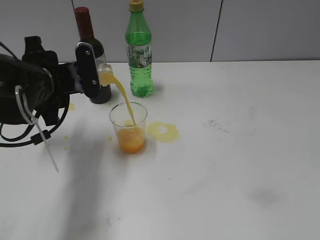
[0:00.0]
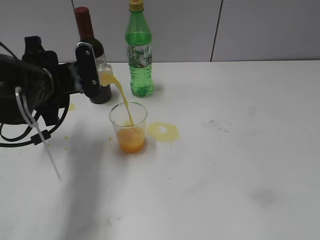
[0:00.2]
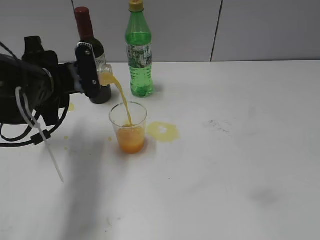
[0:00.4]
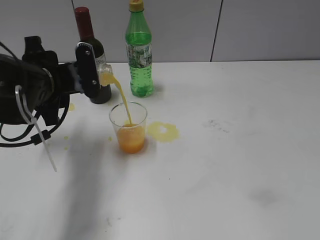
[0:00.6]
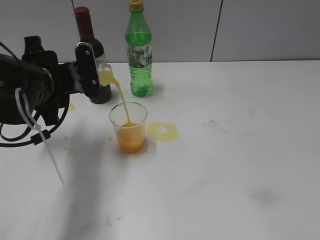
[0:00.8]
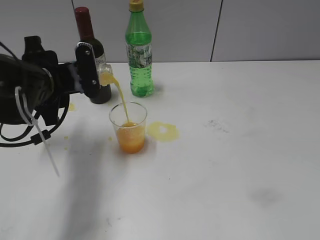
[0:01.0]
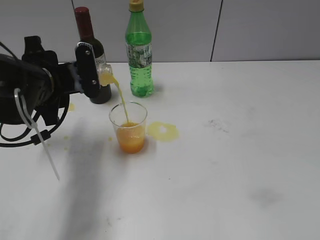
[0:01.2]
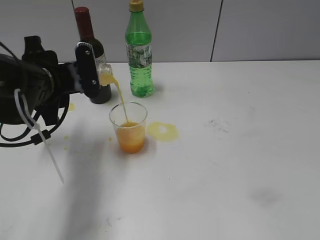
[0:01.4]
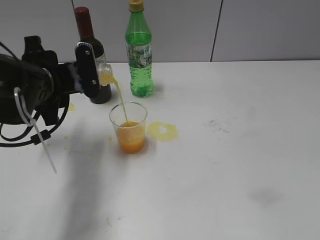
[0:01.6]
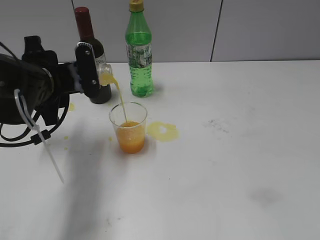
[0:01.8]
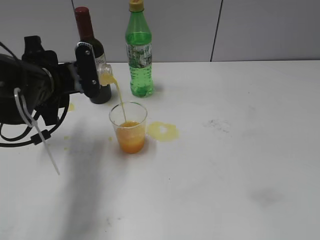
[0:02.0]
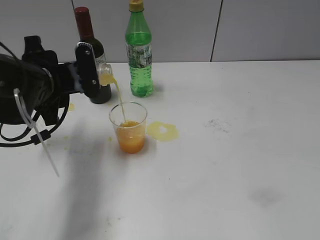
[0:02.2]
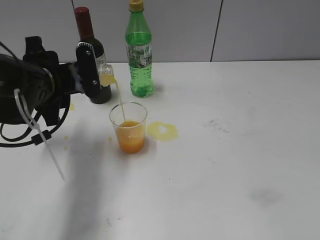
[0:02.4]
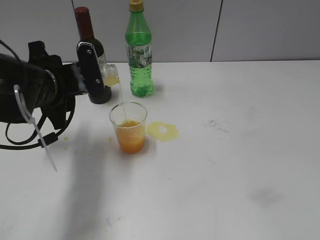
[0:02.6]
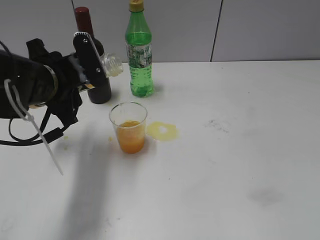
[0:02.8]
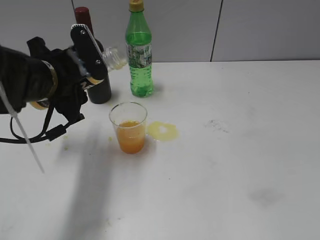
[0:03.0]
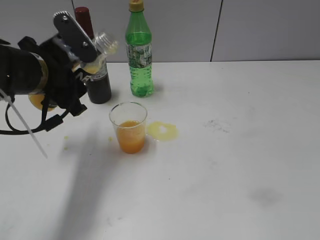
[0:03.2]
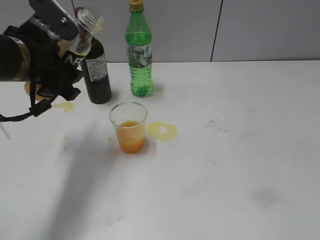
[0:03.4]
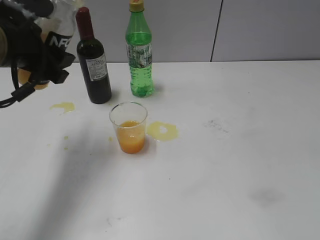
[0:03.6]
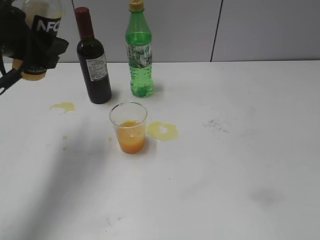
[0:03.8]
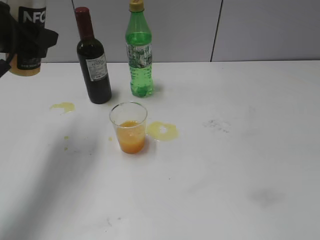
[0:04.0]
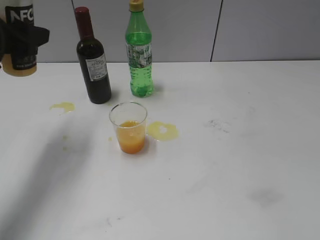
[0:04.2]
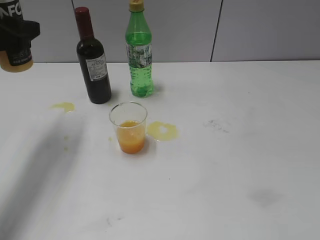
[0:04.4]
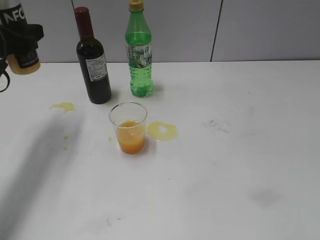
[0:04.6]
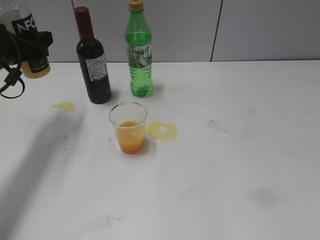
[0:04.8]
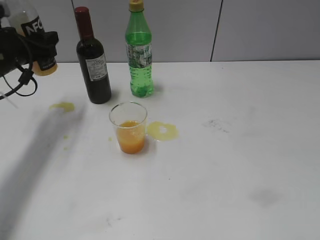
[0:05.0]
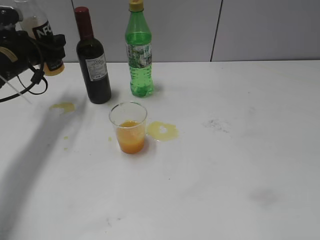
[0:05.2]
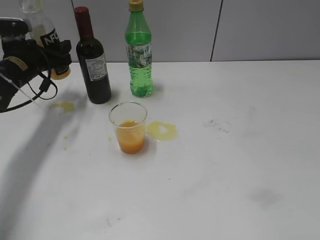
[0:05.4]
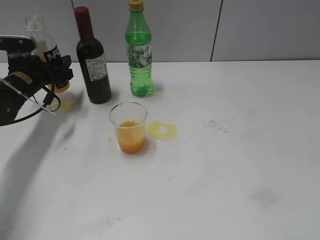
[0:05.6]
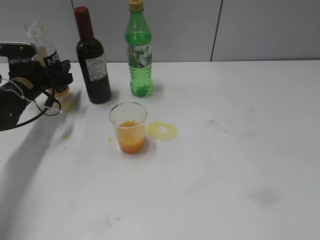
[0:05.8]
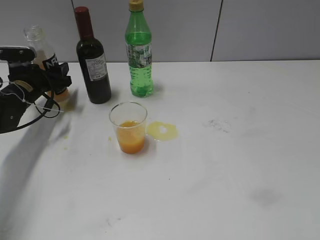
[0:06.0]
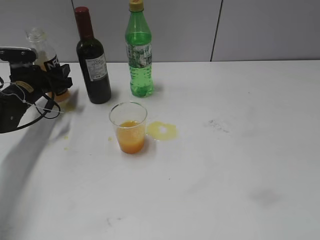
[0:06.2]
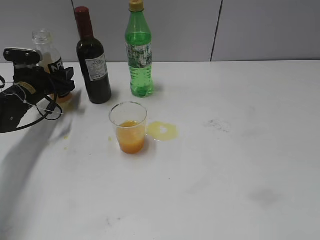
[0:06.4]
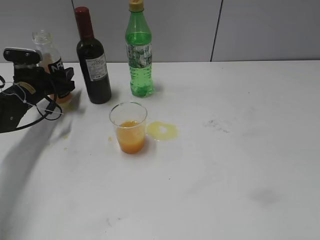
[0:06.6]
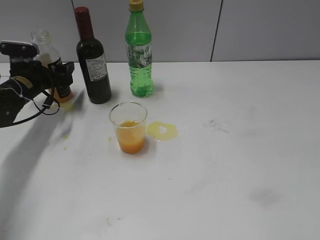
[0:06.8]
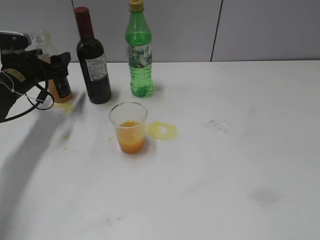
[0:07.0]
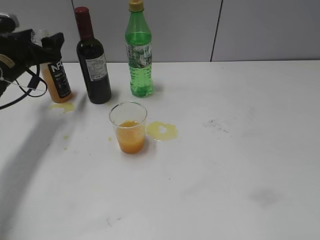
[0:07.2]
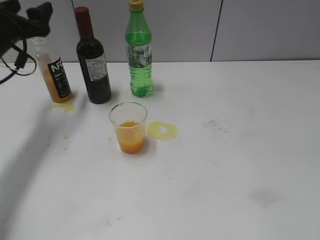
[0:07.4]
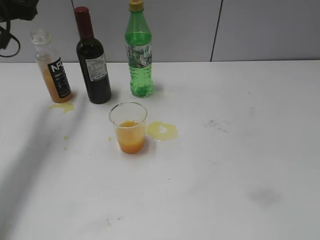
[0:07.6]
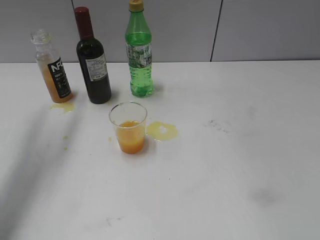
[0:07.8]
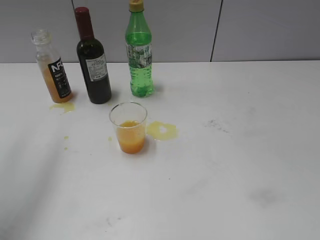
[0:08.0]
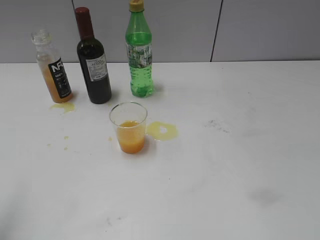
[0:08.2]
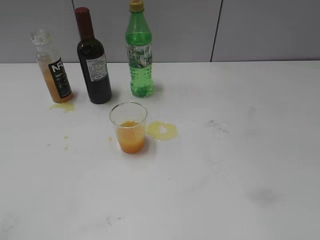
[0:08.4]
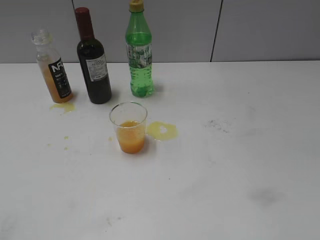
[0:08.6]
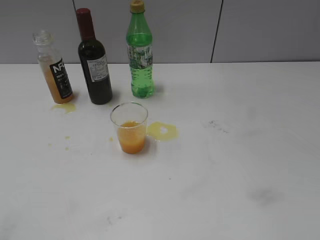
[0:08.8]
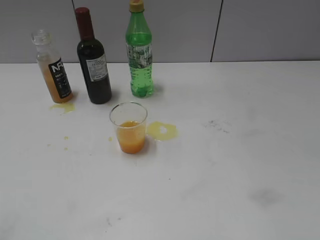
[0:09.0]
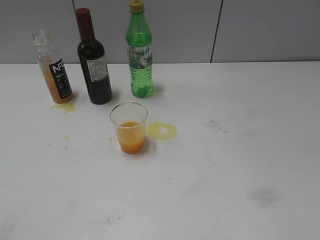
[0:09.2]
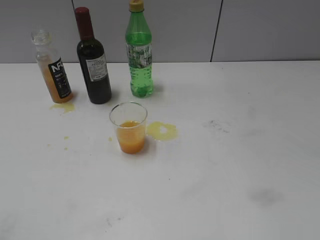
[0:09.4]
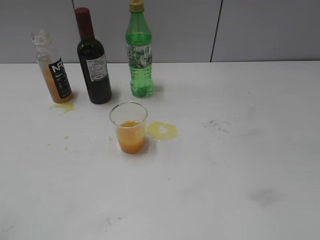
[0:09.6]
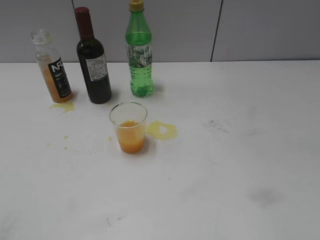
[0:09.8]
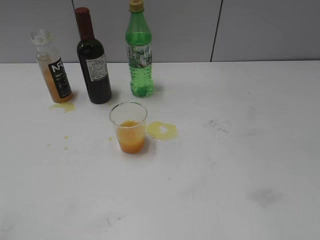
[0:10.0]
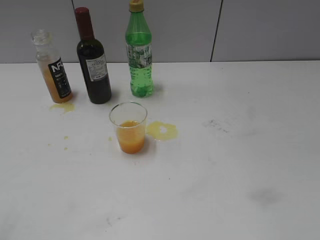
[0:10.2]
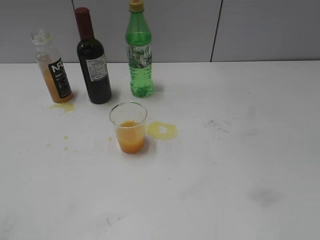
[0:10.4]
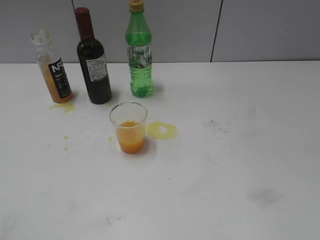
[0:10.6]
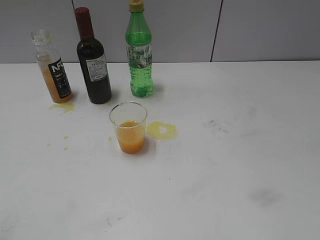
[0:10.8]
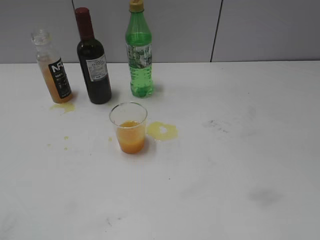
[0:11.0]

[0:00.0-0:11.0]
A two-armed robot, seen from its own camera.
Step, 0:00.0 to 0:03.0: Pour the orange juice from bottle to cup with left gripper.
Step, 0:03.4 to 0:06.8: Place the orange juice bottle on the table with left gripper.
0:00.0 to 0:01.6: Both grippers stay put.
0:03.2 to 0:04.8: The left gripper shifts some 10 cm to the left and forward.
0:04.8 to 0:06.2: The left gripper goes roughly 15 cm downward and forward.
0:06.2 to 0:07.8: The left gripper heads upward and backward, covering approximately 25 cm, and opens up.
0:07.8 to 0:09.4: The left gripper travels backward by some 35 cm.

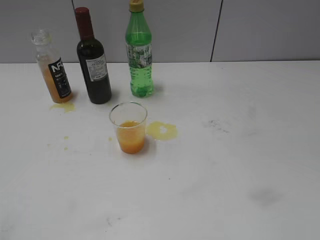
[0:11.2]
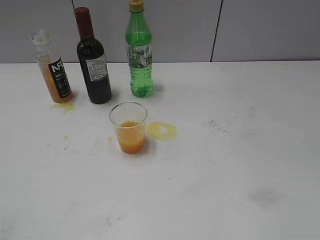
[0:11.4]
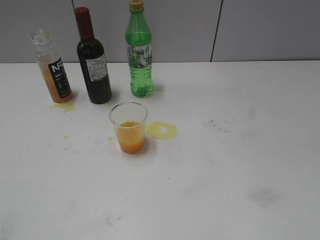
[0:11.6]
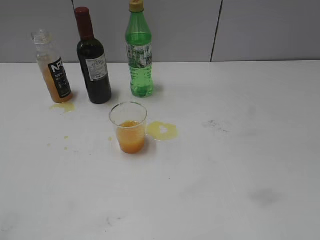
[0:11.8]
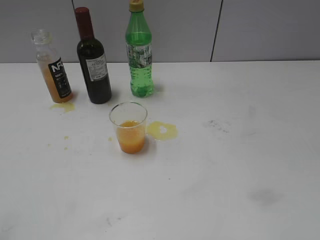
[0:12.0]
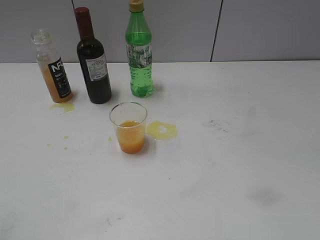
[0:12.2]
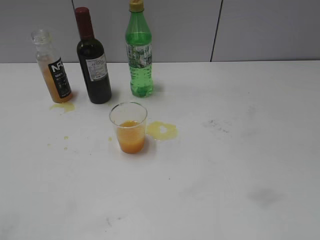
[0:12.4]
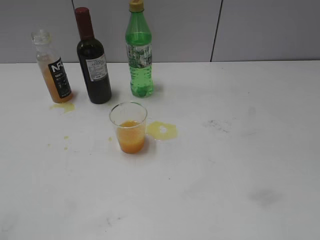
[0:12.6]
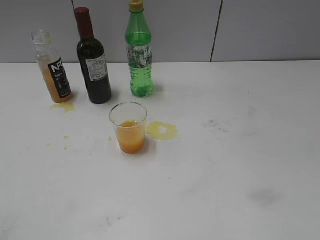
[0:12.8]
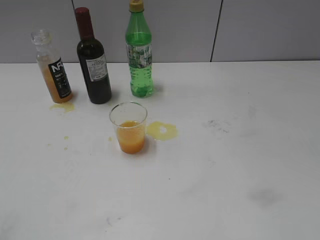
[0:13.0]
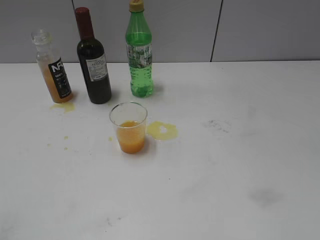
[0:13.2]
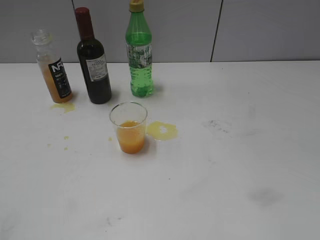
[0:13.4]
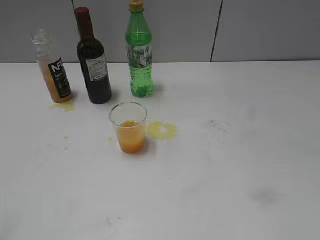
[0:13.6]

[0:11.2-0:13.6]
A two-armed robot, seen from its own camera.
0:11.2 to 0:13.6: The two grippers keep their place.

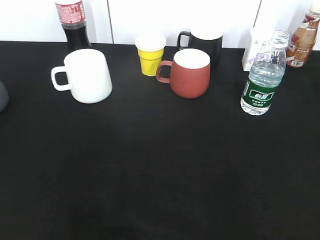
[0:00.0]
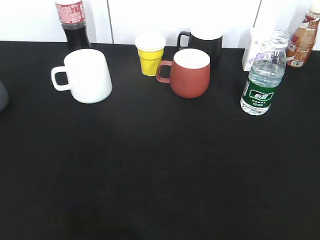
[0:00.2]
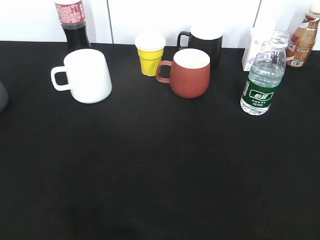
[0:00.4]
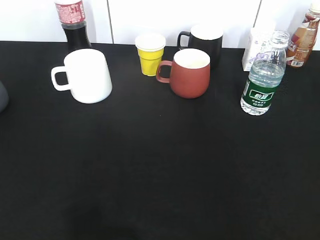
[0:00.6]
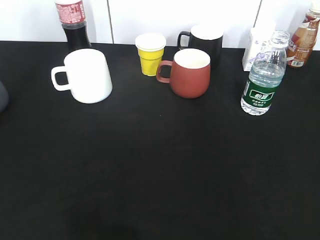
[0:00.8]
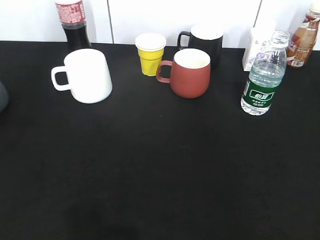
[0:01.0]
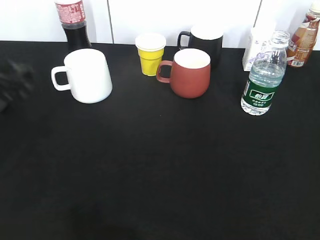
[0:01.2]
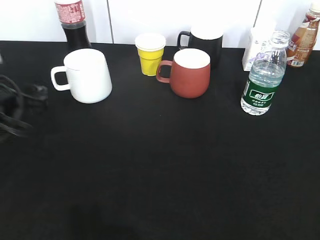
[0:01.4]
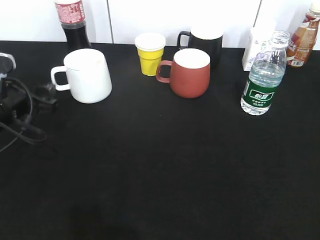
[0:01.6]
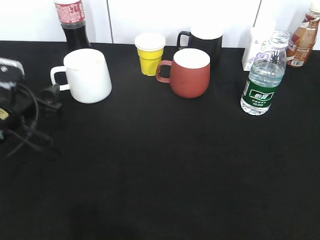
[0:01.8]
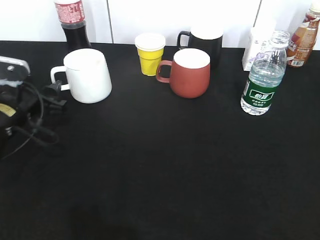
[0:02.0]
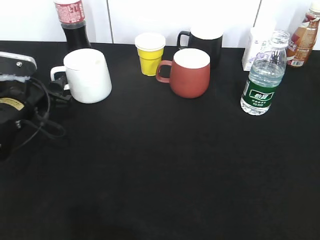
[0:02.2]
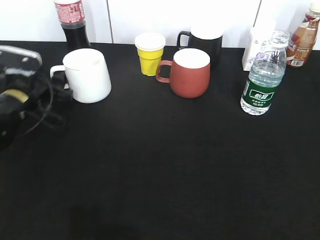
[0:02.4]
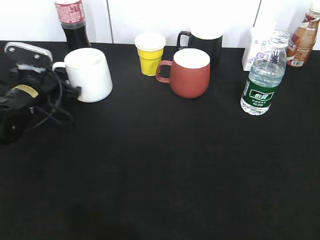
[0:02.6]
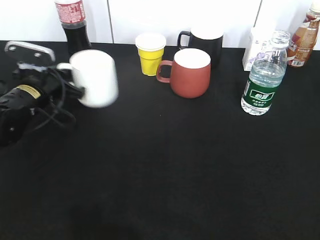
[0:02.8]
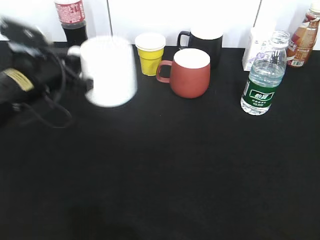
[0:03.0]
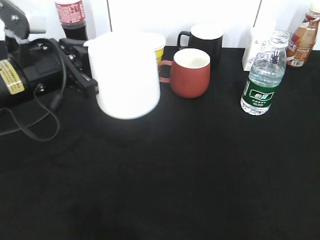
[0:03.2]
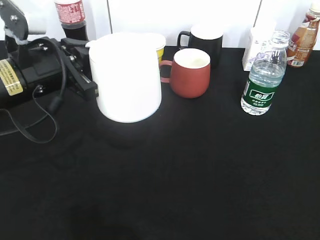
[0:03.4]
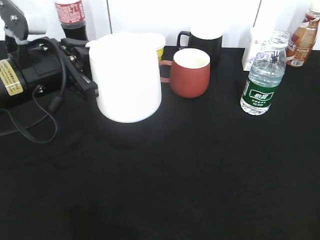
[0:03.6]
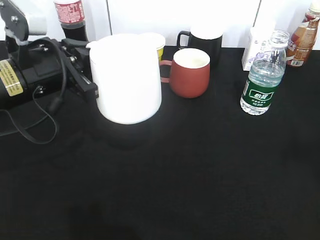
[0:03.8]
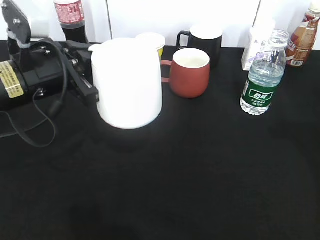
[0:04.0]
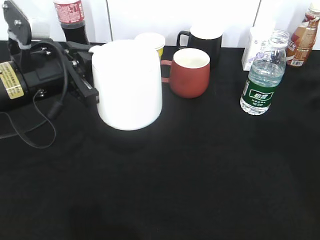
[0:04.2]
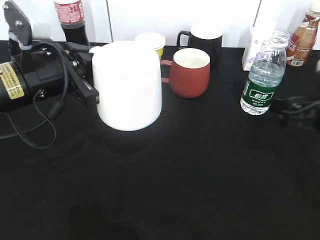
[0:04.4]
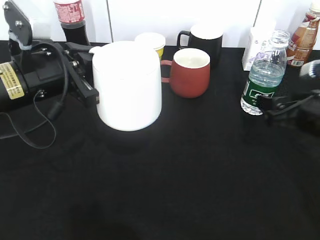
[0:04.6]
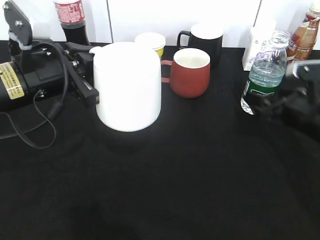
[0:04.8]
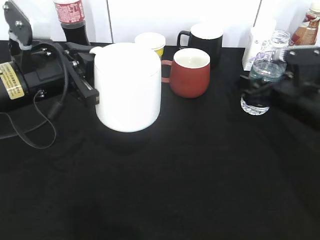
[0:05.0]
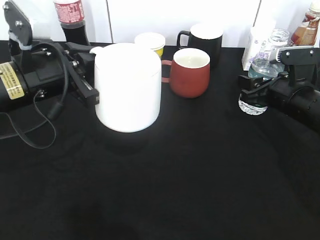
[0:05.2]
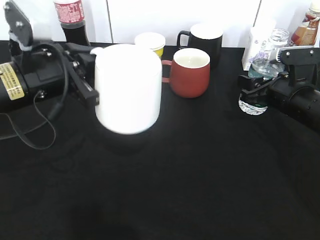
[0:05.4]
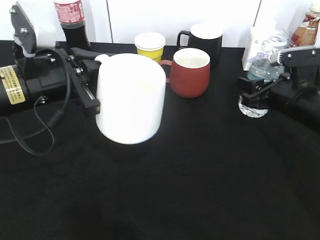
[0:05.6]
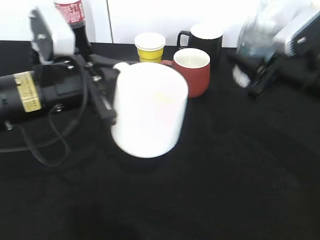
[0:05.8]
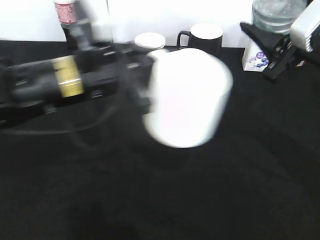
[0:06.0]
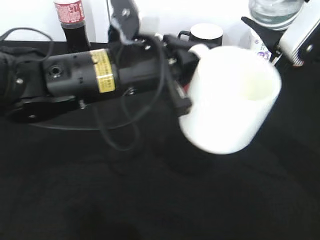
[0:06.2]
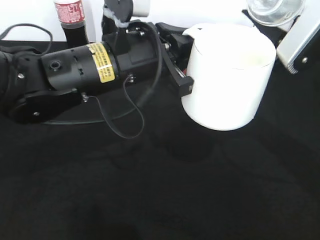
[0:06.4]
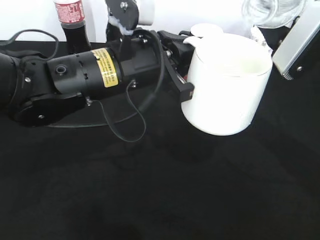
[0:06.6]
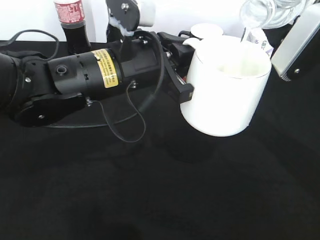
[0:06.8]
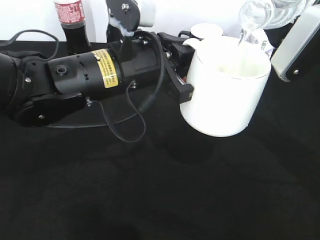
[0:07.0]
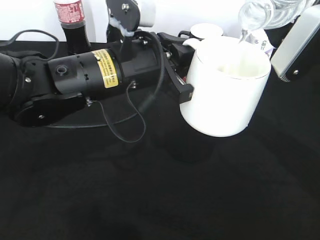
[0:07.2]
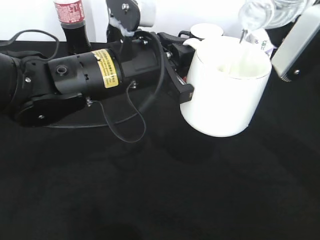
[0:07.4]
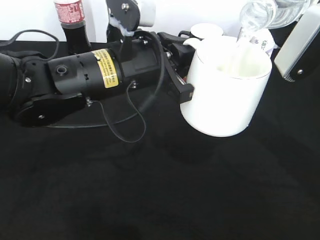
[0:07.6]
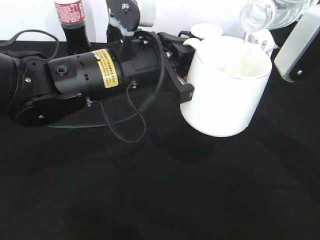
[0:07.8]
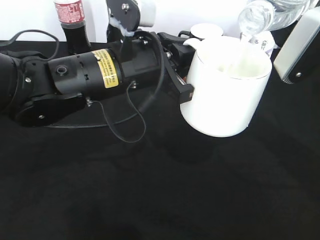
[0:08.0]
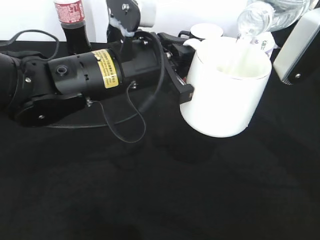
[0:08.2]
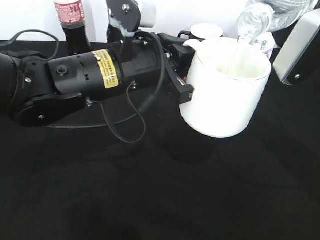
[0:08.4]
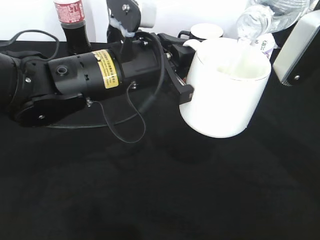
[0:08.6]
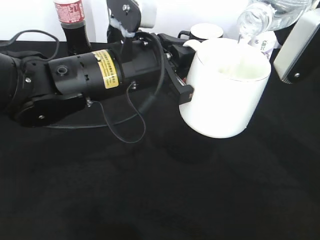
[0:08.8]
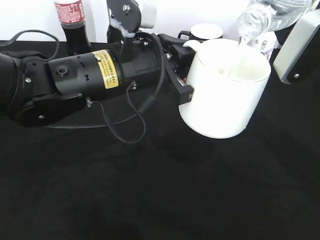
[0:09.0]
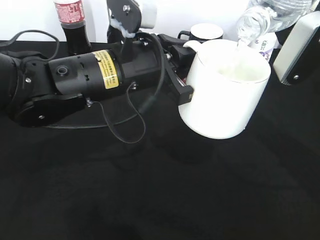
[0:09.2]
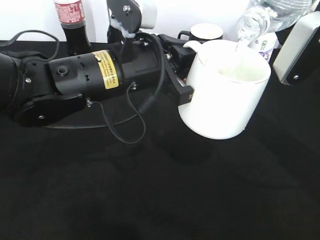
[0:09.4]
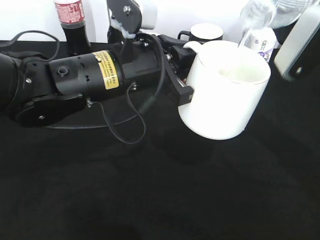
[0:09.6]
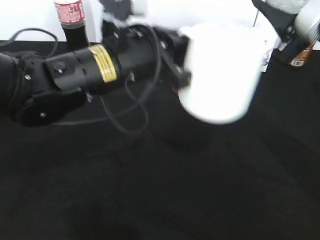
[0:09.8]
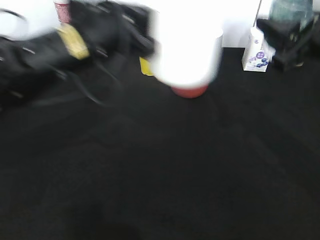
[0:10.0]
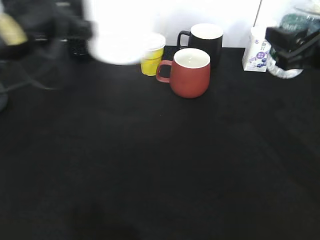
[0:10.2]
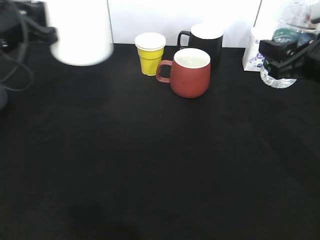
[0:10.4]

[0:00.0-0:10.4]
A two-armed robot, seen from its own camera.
Step, 0:00.0 to 0:02.6: Grasp the white cup with left gripper.
Step, 0:02.8 to 0:03.4: Lift the white cup with left gripper.
Step, 0:03.6 to 0:05.2: Grasp the bottle with water with right gripper.
Step, 0:05.4 to 0:10.0: Pour the water from bottle to cup with right gripper.
0:00.0 to 0:01.4: The left gripper travels forward and downward by about 30 cm, and opens its fingers.
0:01.4 to 0:03.0: The left gripper goes some 5 cm to the right, moves roughly 10 cm forward and comes back, and closes its fingers.
0:03.0 to 0:04.4: The left gripper shifts by about 5 cm. The right gripper goes approximately 25 cm forward and downward, and opens its fingers.
0:04.4 to 0:06.0: The right gripper moves upward, roughly 10 cm, and closes its fingers, while the left gripper moves to the right, some 10 cm.
0:07.4 to 0:09.0: There are only small adjustments of the grippers.
0:09.0 to 0:10.4: The left gripper heads to the left, covering about 20 cm. Meanwhile the right gripper goes some 5 cm downward.
